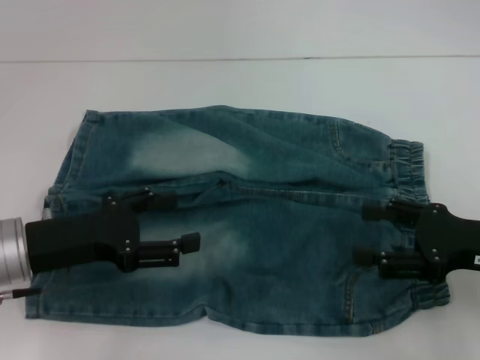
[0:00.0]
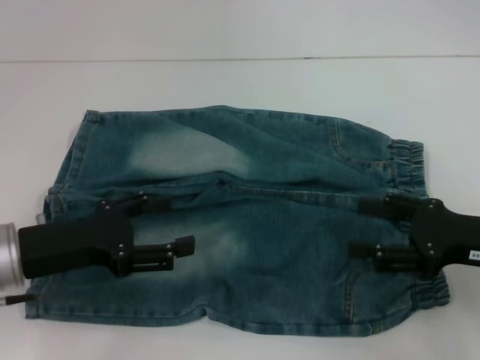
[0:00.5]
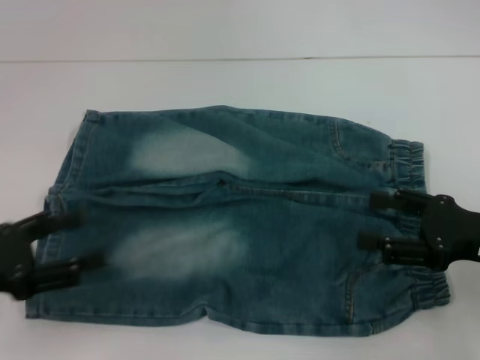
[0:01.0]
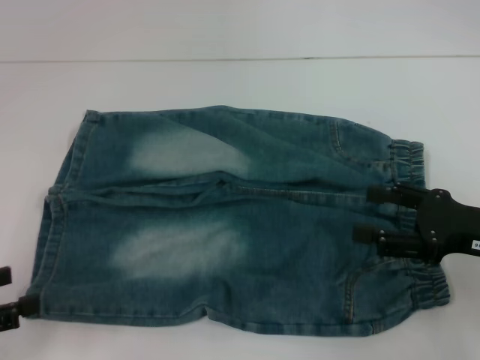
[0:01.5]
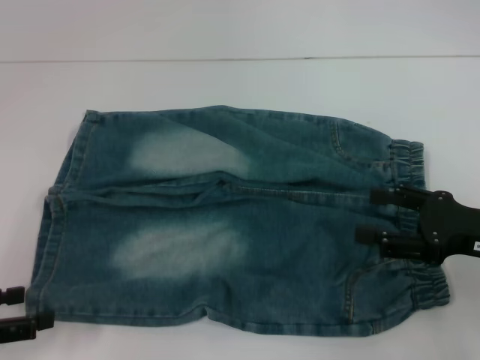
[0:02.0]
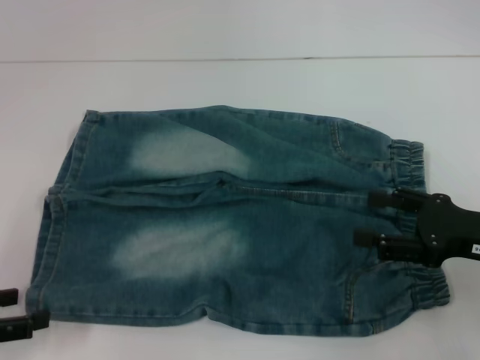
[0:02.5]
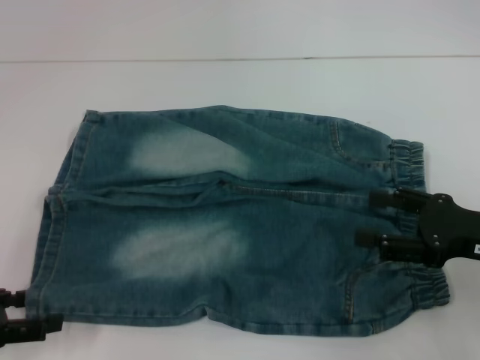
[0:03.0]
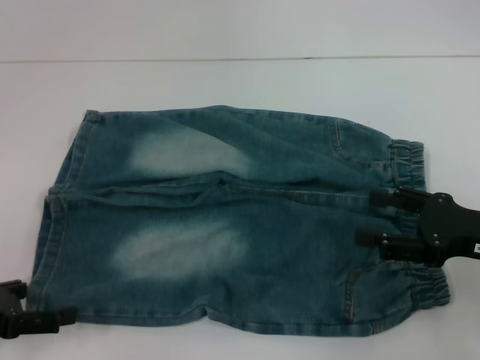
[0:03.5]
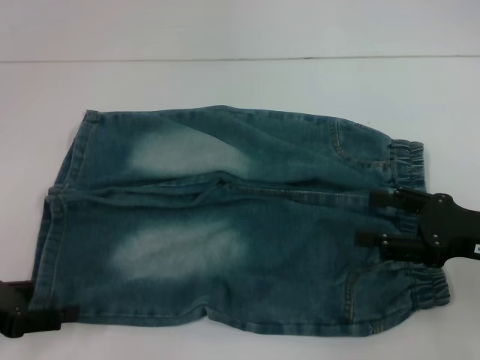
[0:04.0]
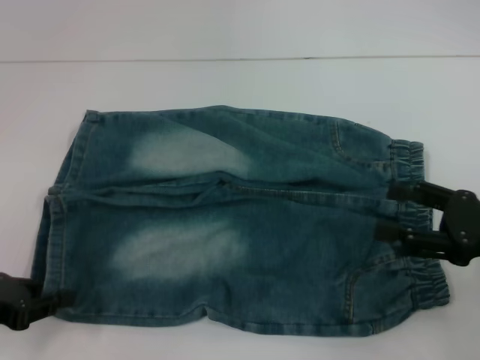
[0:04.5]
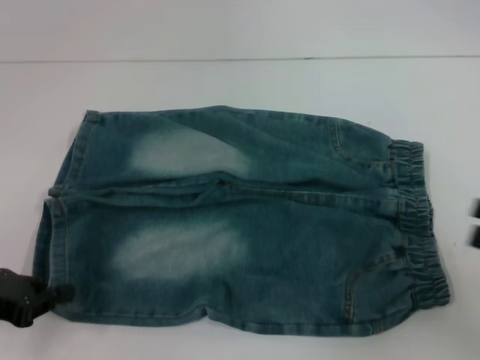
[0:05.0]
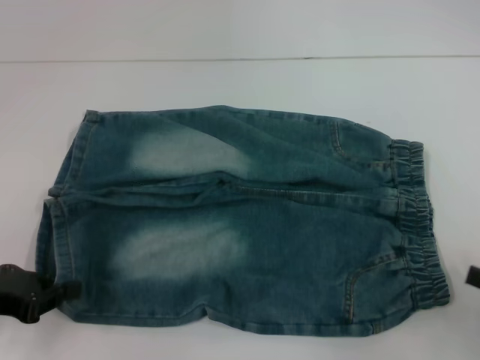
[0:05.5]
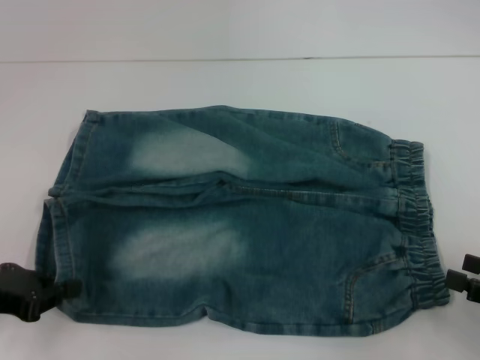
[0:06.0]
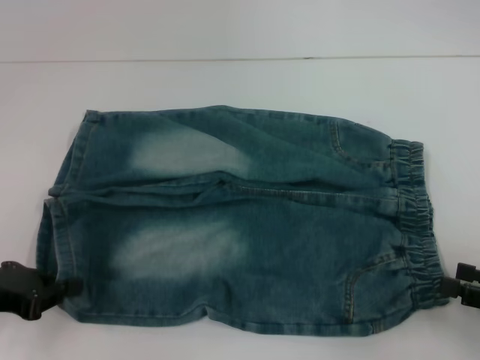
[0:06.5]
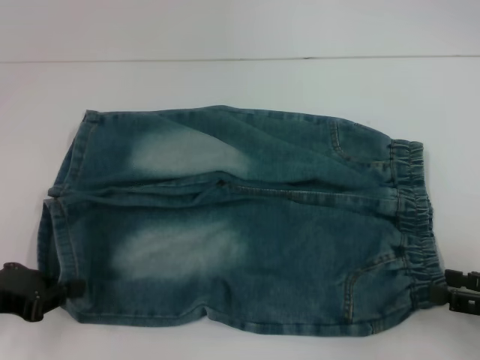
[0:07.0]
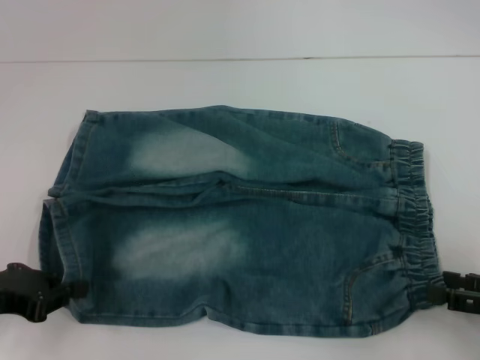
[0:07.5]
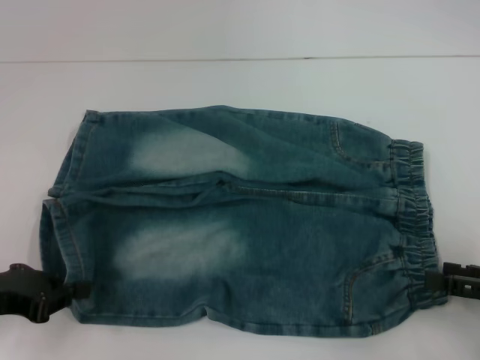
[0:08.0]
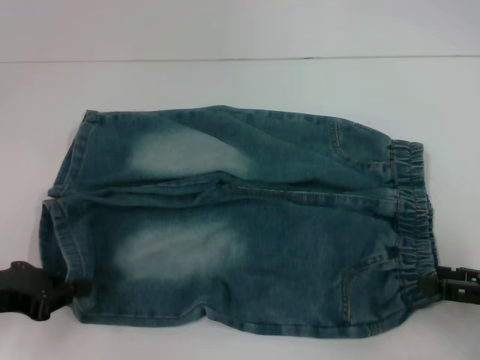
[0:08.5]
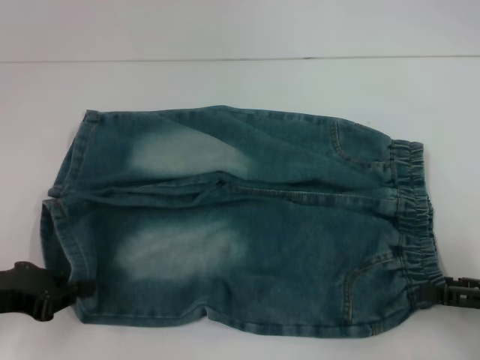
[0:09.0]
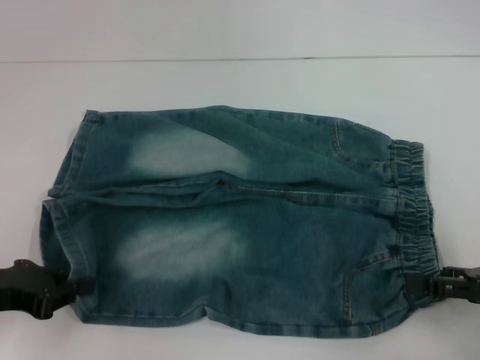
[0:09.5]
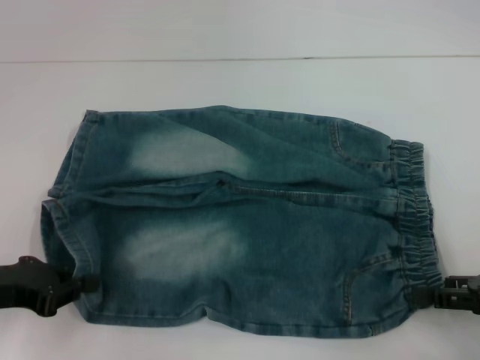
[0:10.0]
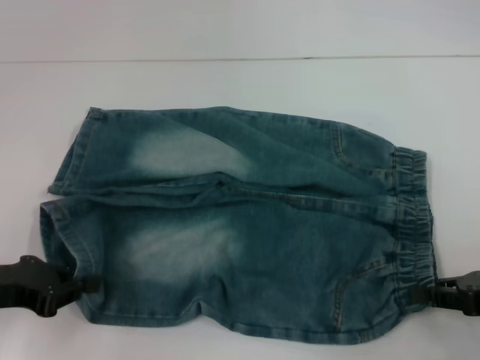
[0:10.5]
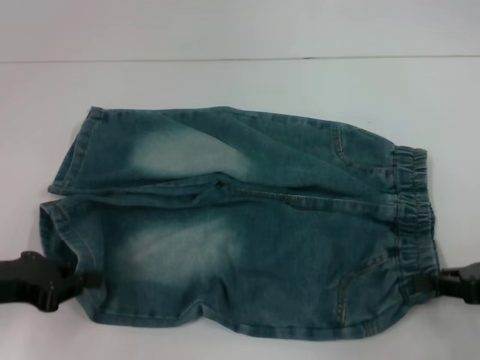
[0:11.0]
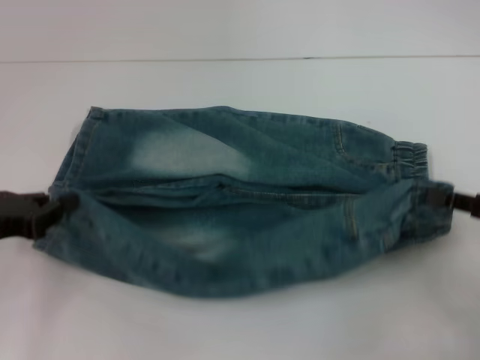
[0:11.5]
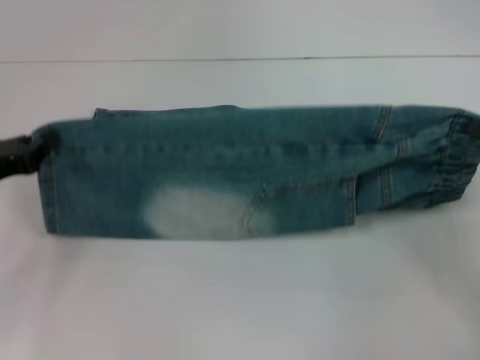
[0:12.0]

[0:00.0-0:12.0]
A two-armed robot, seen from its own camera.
Step, 0:00.0 to 0:04.5: Grab the lower left pant leg with your left hand.
Step, 0:05.0 to 0:09.5: Hold the lower right waistband with your right hand.
0:00.0 to 0:02.0: The left gripper goes roughly 15 cm to the left and backward.
0:02.0 to 0:04.0: The grippers stay close to where they were, moving slightly.
0:04.0 to 0:06.0: The left gripper closes, while the right gripper travels to the right and backward by roughly 10 cm.
0:06.0 to 0:10.0: The grippers move only a little.
0:10.0 to 0:12.0: The left gripper is displaced forward by approximately 5 cm. Meanwhile the right gripper closes its fingers.

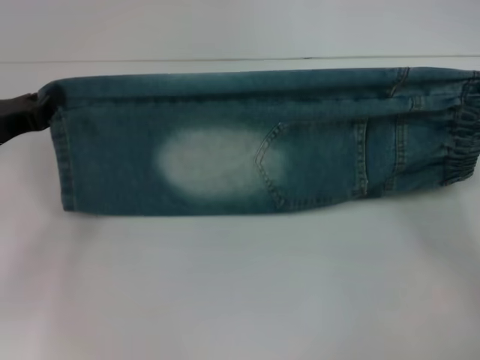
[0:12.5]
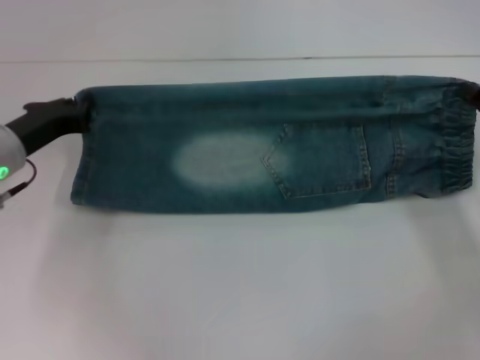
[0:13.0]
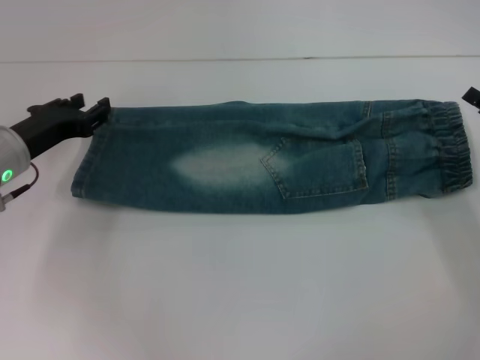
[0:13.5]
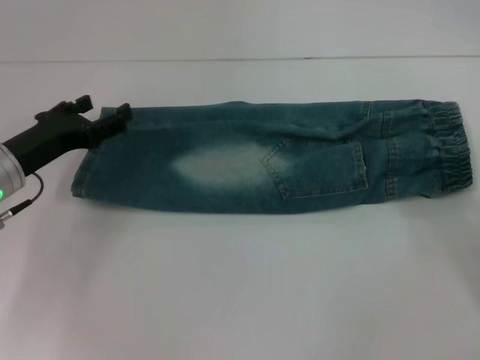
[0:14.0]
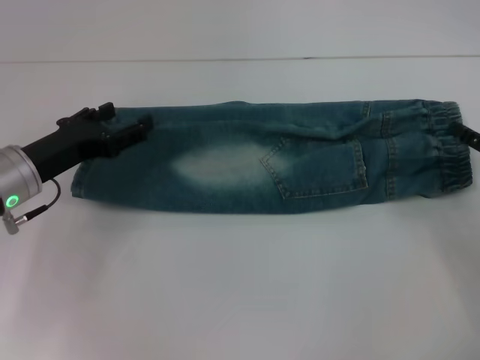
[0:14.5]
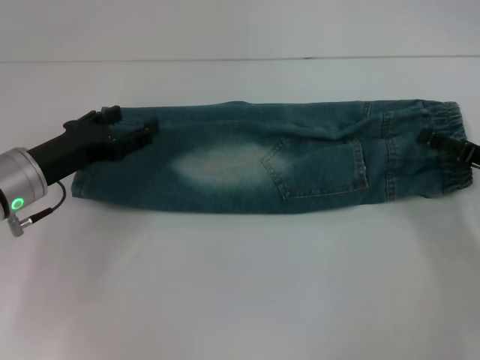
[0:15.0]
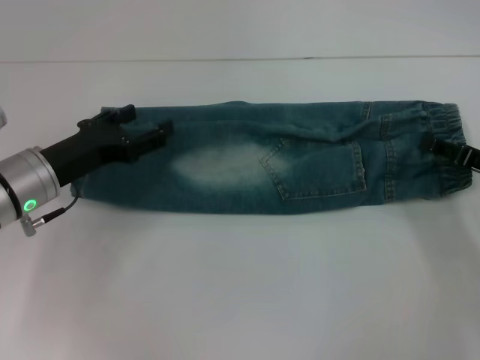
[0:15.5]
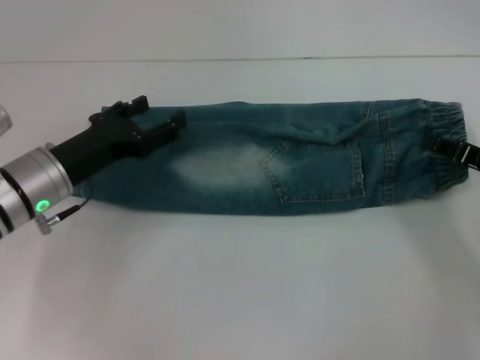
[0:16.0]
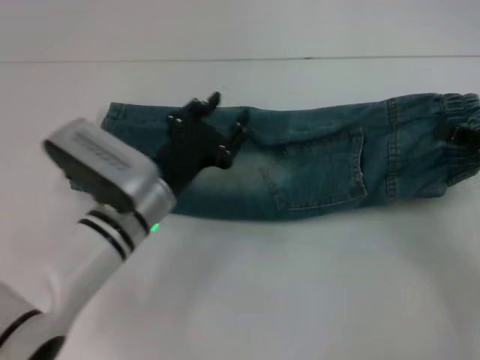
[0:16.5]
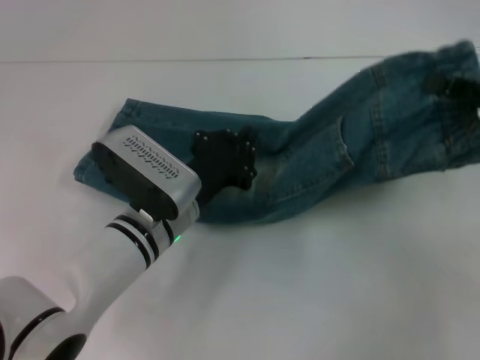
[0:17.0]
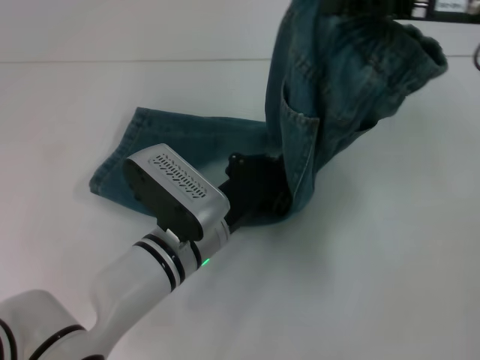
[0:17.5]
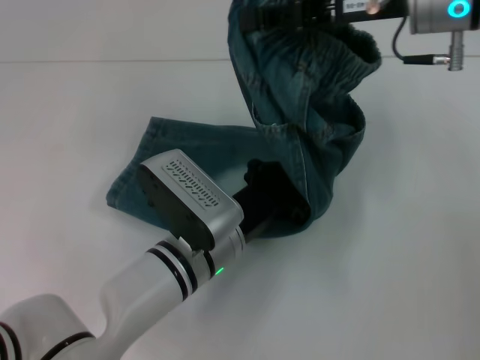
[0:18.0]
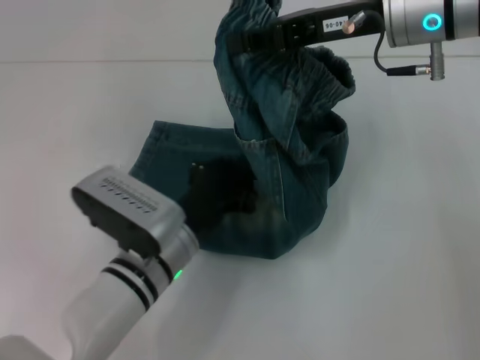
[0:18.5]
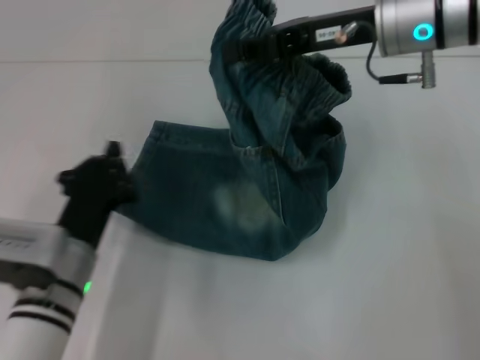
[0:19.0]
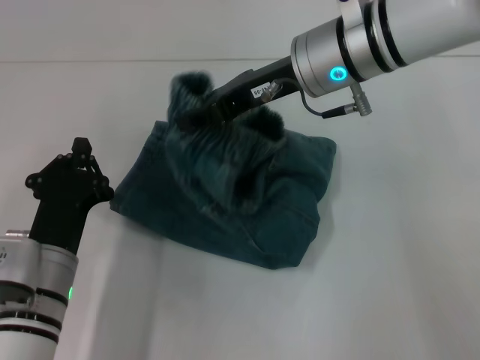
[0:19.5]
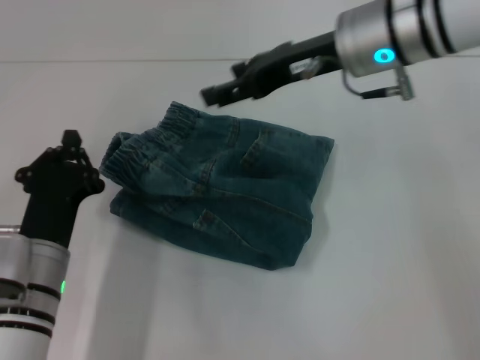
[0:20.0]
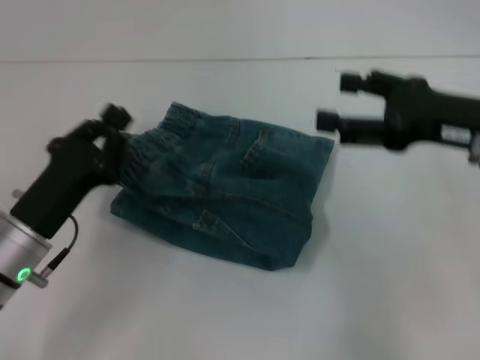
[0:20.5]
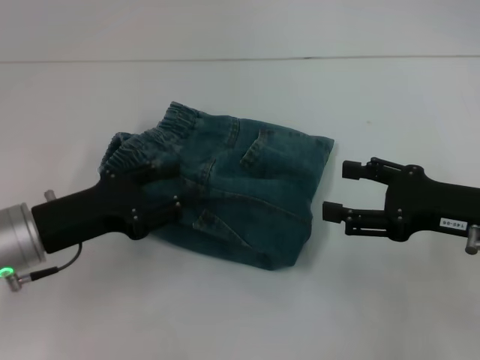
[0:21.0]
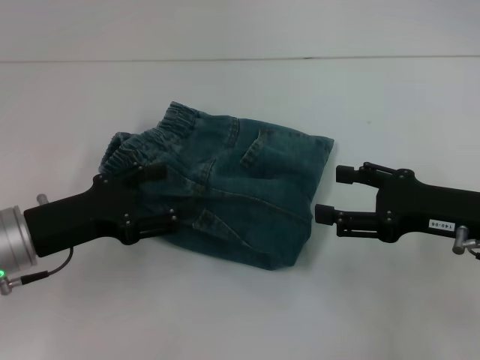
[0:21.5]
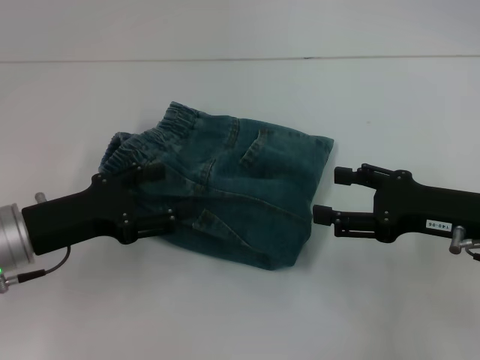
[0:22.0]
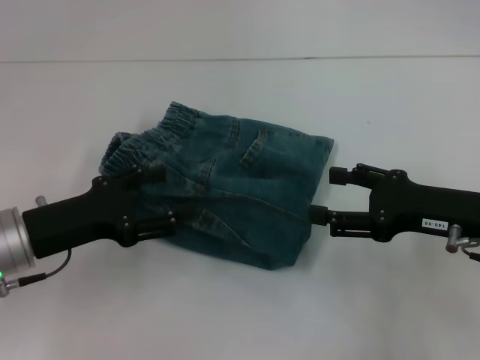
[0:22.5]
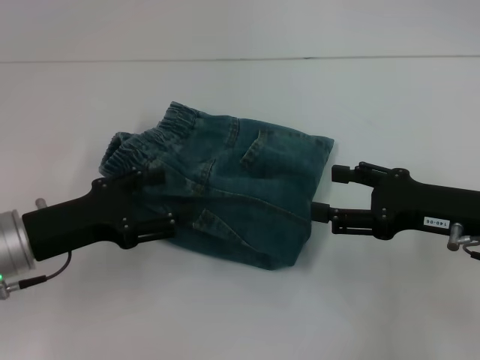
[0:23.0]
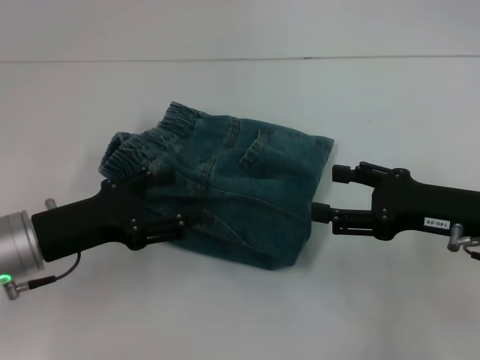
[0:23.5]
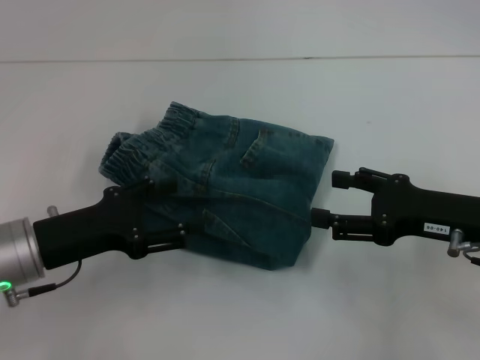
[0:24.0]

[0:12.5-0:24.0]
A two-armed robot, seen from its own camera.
Step, 0:13.5 to 0:15.5: Grab the waistband with your right hand.
Step, 0:16.0 to 0:18.0: Press the middle of the pants with your left hand.
Step, 0:18.5 to 0:19.5: Fold to the left with your right hand.
0:12.5 to 0:14.5: The left gripper moves to the right, roughly 5 cm, and opens up, while the right gripper opens its fingers.
0:14.5 to 0:16.5: The right gripper closes up, while the left gripper moves to the right, about 15 cm.
0:16.5 to 0:18.5: The right gripper is displaced to the left, upward and forward by about 25 cm, while the left gripper ends up roughly 5 cm from where it was, and closes up.
0:18.5 to 0:20.0: The left gripper heads to the left, covering approximately 10 cm. The right gripper opens up.
0:20.0 to 0:22.0: The left gripper travels upward and to the left by some 10 cm, and opens its fingers. The right gripper moves to the right, backward and downward, about 20 cm.
0:22.0 to 0:24.0: Both grippers stay about where they are.
